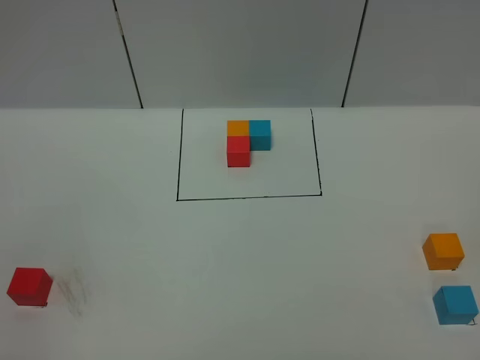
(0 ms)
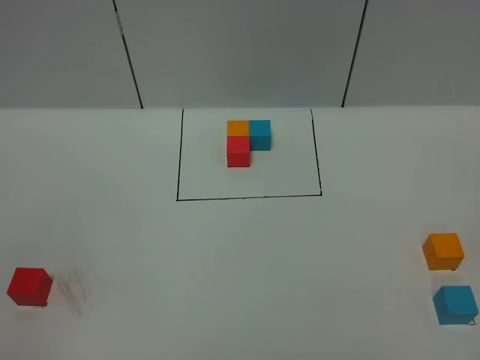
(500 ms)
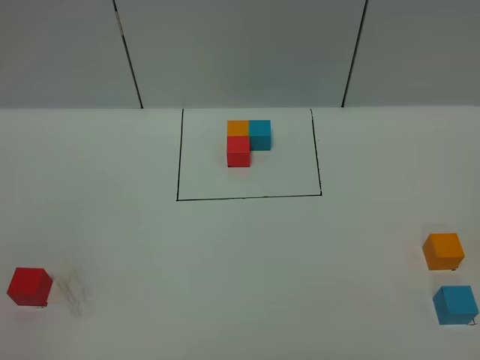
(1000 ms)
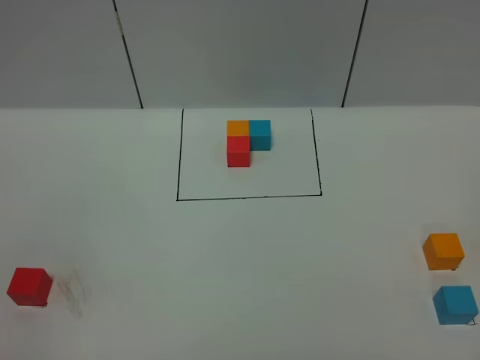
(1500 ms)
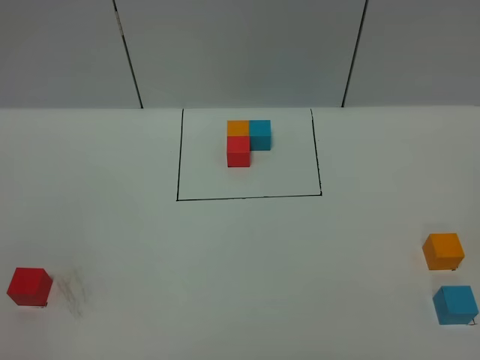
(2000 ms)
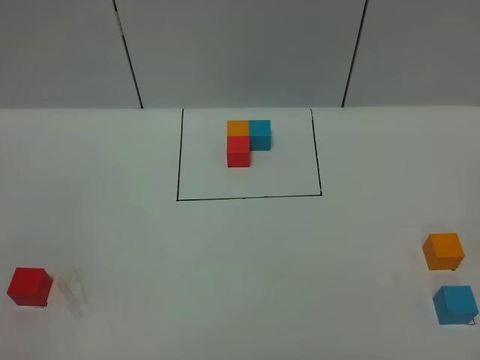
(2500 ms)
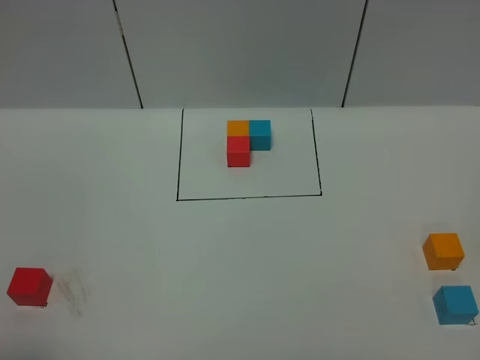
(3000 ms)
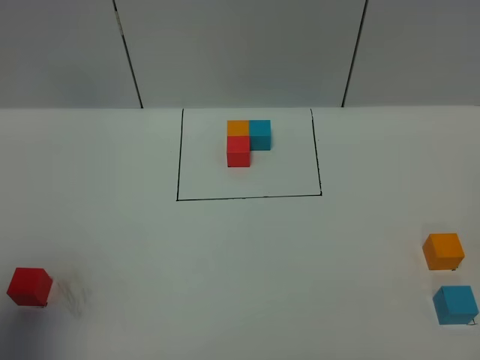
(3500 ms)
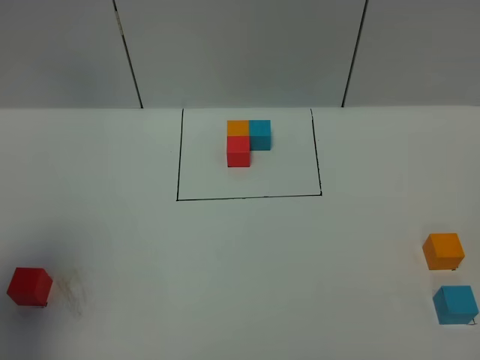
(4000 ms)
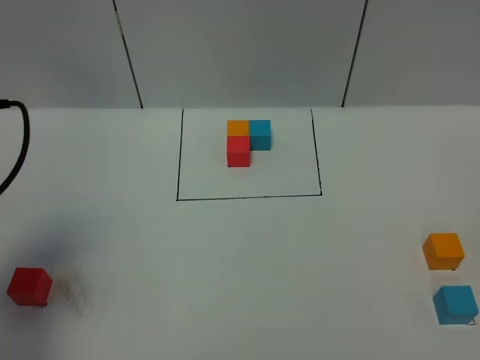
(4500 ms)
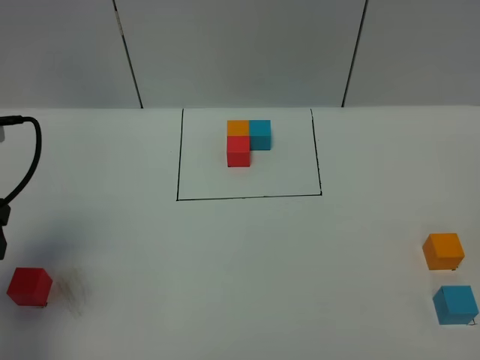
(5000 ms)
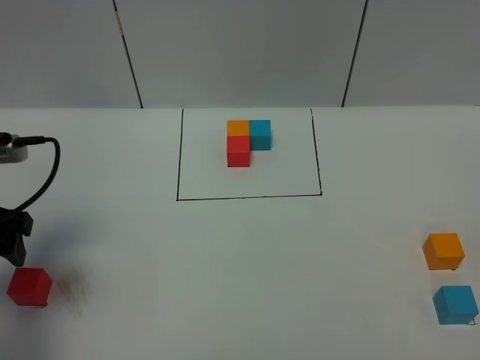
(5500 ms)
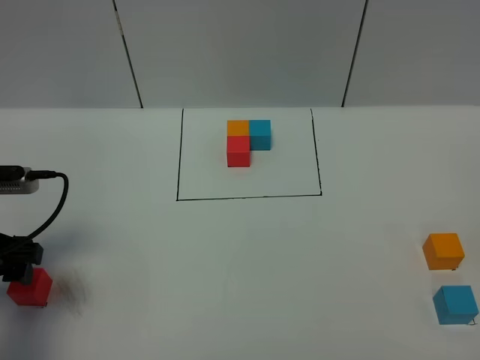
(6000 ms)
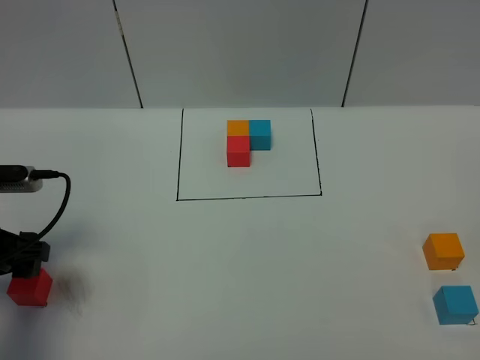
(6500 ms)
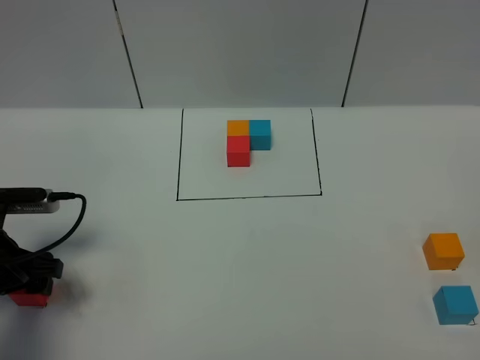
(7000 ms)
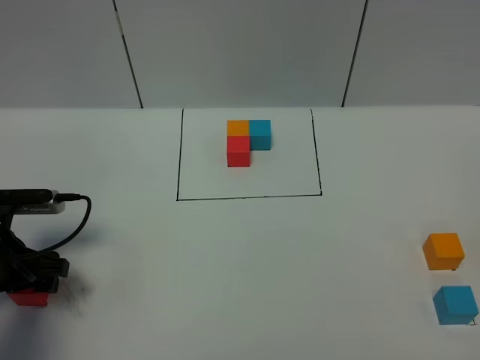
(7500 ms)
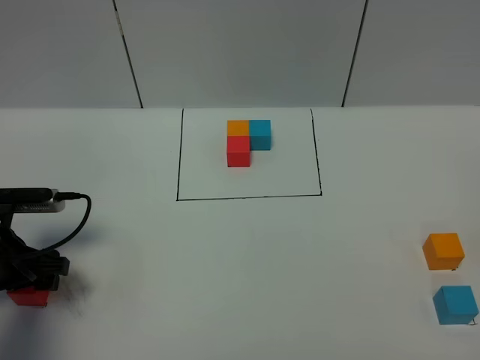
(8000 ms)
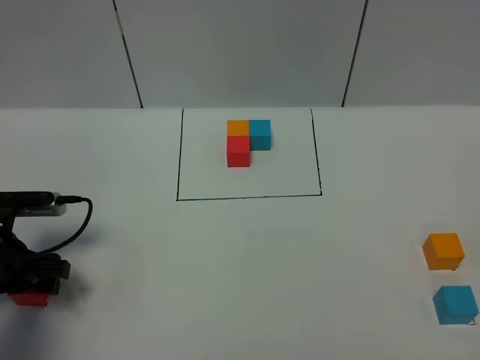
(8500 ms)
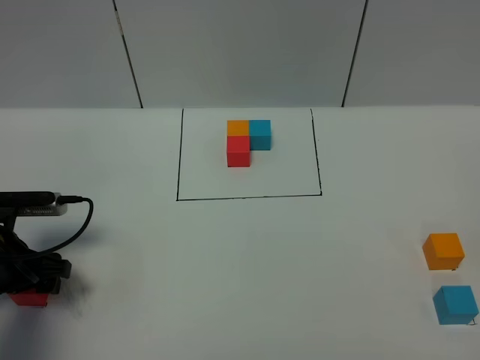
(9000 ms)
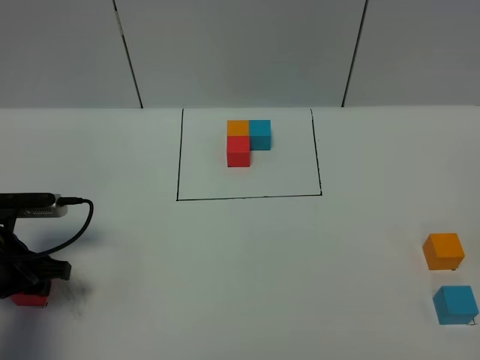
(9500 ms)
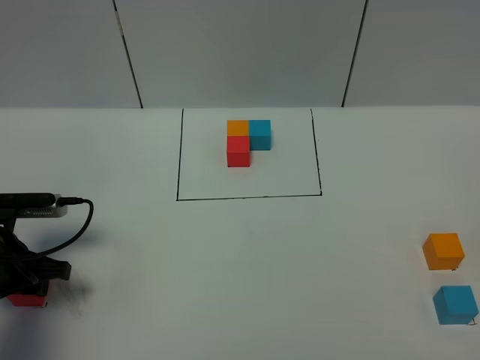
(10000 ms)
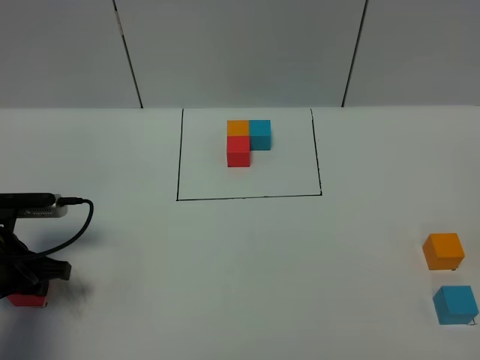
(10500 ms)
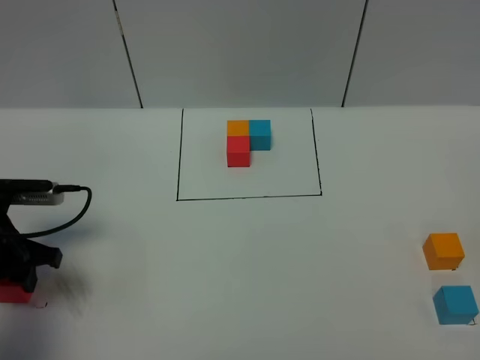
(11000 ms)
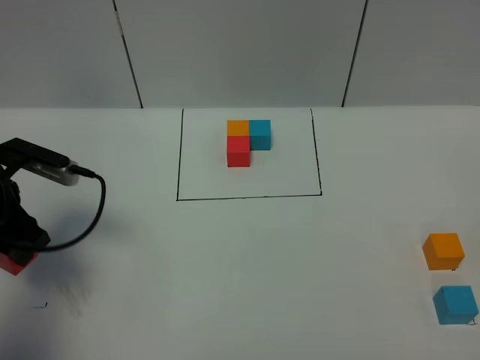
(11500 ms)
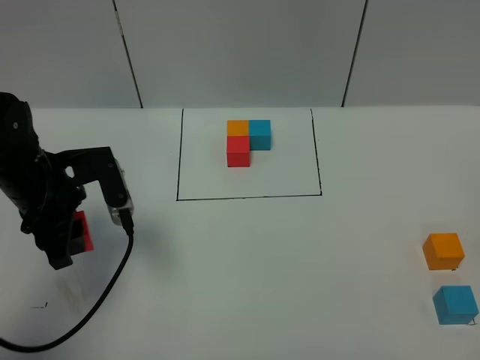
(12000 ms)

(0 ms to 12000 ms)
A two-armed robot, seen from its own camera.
Task of the whole recording: According to the building block template in front, assemble the scattered blocks together.
0 ms - 2000 ms: Neither gripper changes place.
2000 ms - 4000 ms: The left gripper heads forward, covering approximately 20 cm, and closes.
4000 ms - 6000 ms: The left gripper goes approximately 15 cm downward, and opens up.
6000 ms - 8000 ms: The left gripper moves downward, some 5 cm.
8000 ms - 10000 ms: The left gripper closes up.
10000 ms - 12000 ms: The left gripper is displaced upward and to the right by approximately 10 cm.

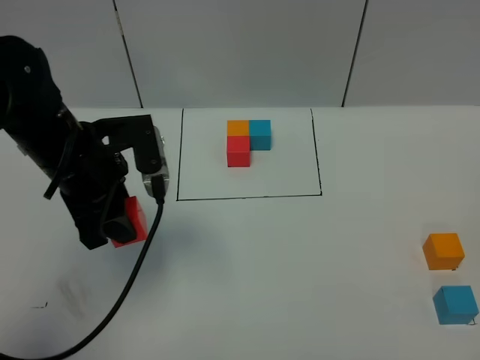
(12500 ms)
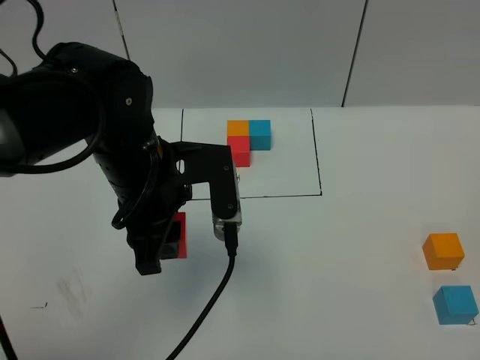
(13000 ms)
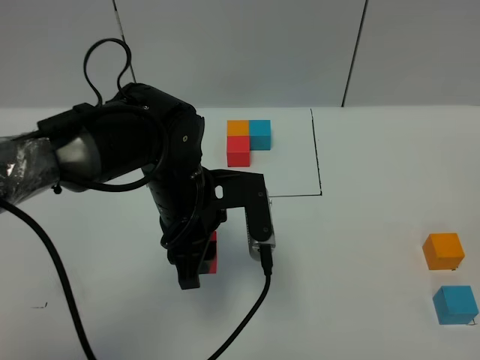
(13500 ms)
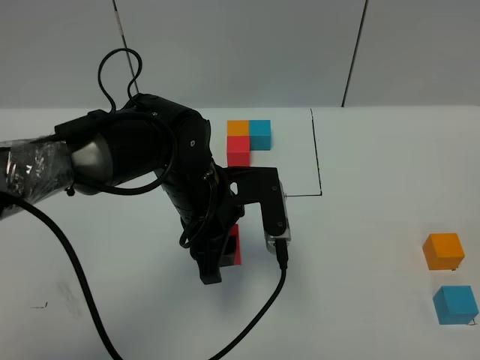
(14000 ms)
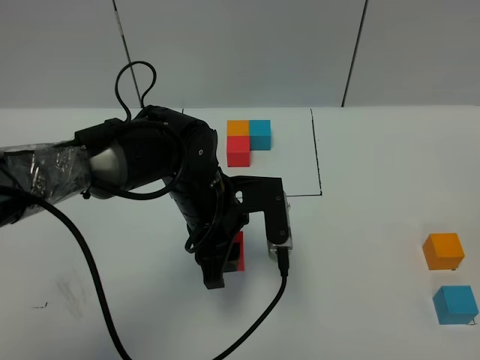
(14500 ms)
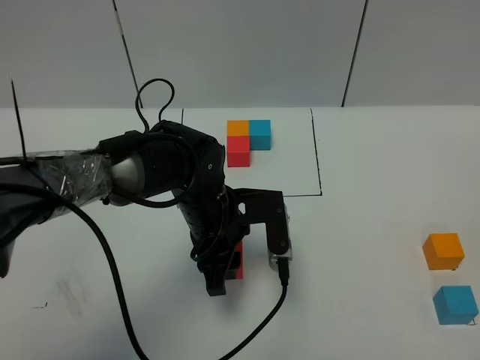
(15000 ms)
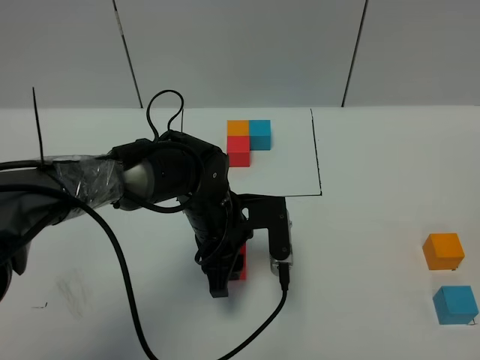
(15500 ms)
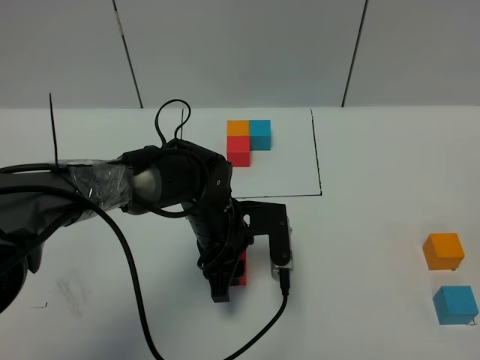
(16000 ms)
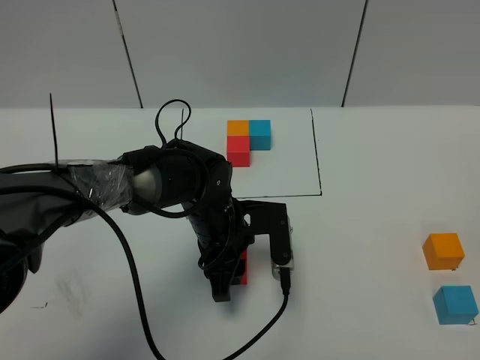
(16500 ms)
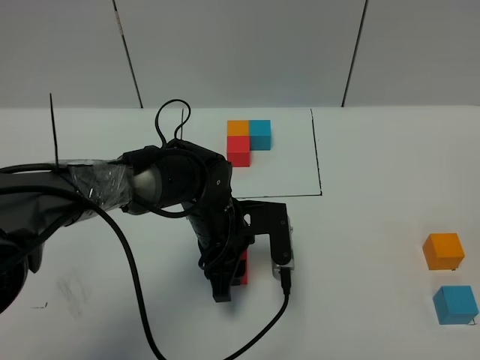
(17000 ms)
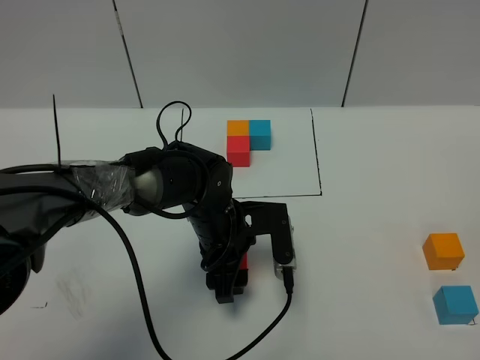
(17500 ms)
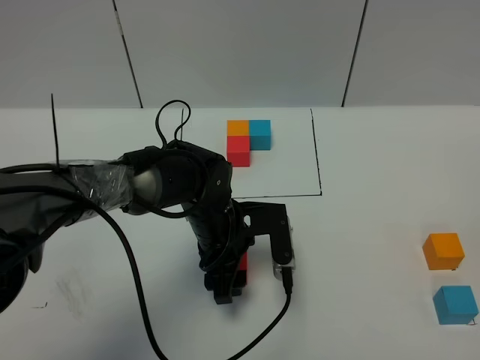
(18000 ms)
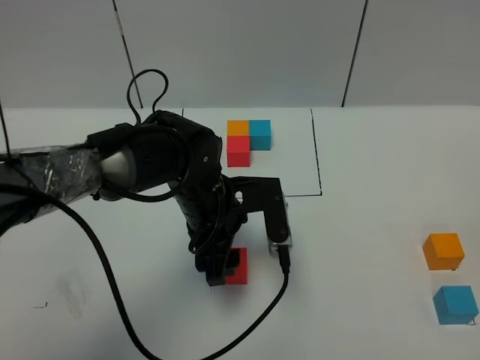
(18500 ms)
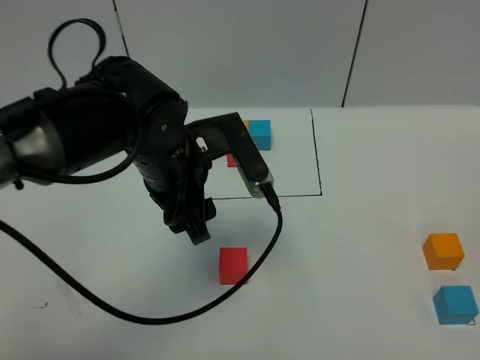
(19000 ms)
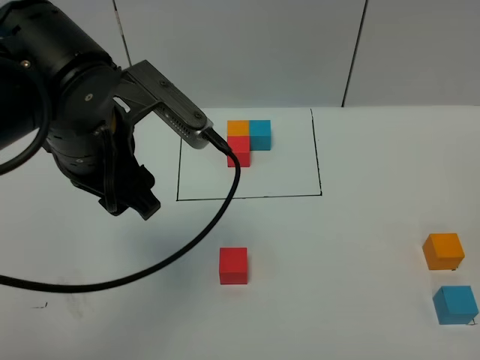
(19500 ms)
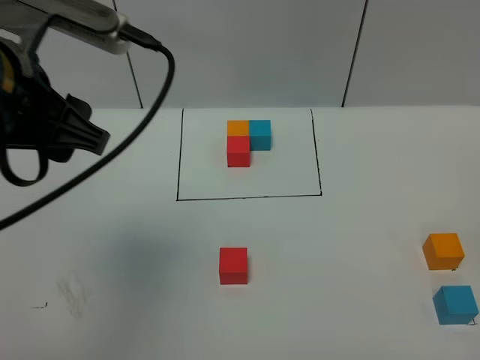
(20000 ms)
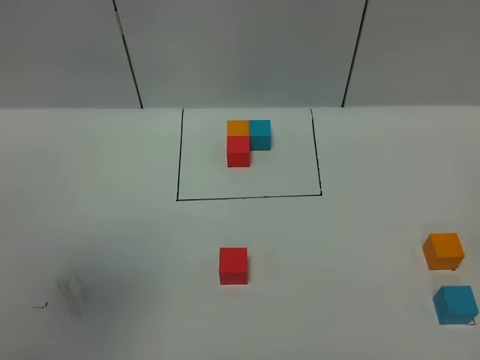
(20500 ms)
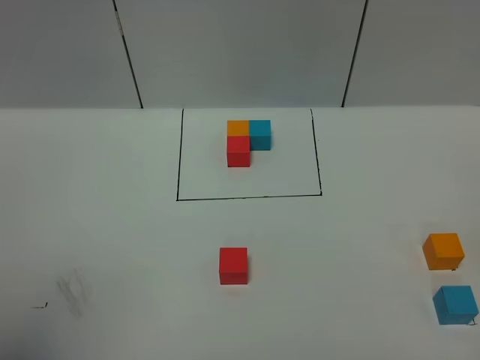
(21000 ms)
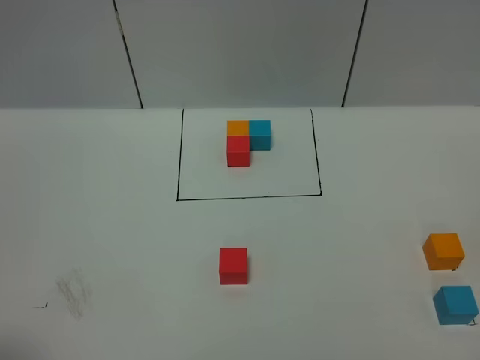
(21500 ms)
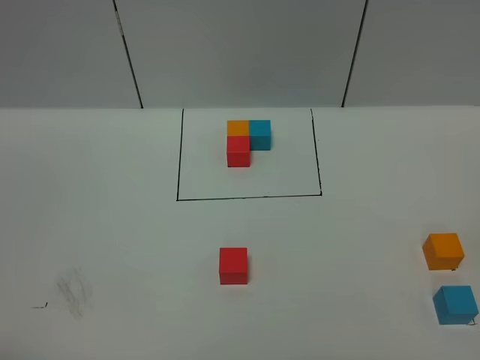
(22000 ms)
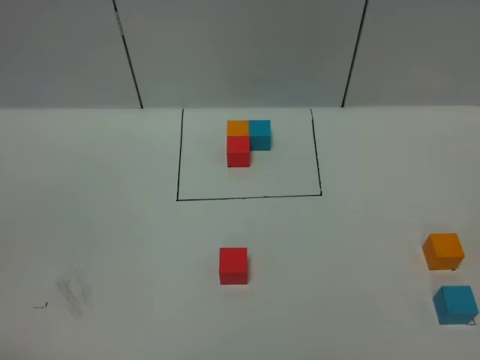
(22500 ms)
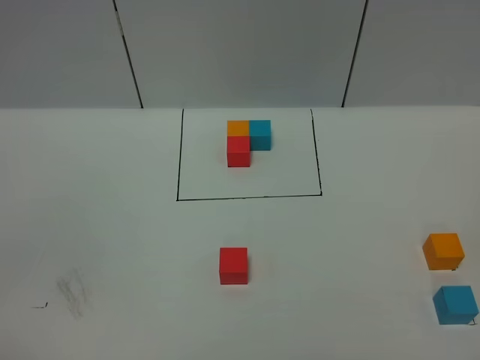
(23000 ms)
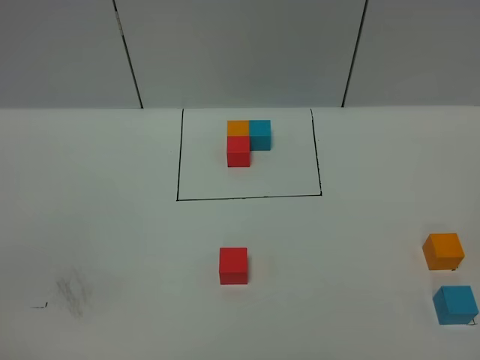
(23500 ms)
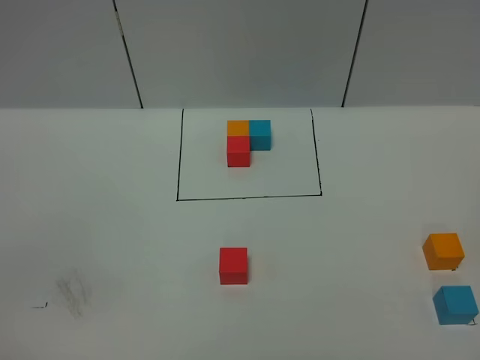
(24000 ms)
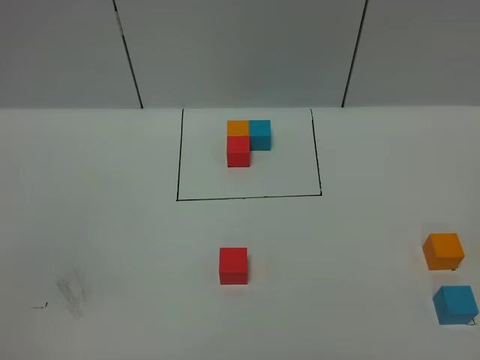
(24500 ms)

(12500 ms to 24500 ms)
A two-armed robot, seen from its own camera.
Task of the whole recording: According to the building block template in front, assemble the scattered blocks together.
Step, 12500 ms - 18500 ms: Put the red cube in the center of the table.
12500 ms - 14500 ms: The left gripper goes about 15 cm to the right and downward.
14500 ms - 16500 ms: The left gripper moves downward, roughly 5 cm.
16500 ms - 18500 ms: The left gripper is displaced upward by about 5 cm, and opens.
18500 ms - 20500 ms: The left gripper travels upward, to the left and backward by about 40 cm.
20500 ms - 22500 ms: The left gripper heads backward and downward, covering roughly 20 cm.

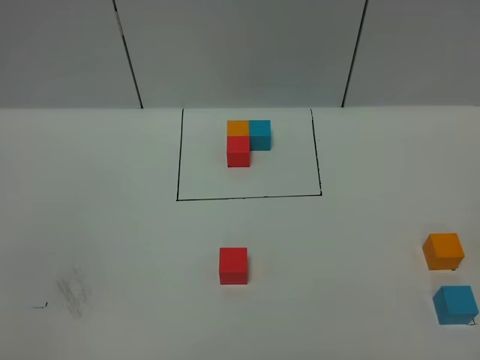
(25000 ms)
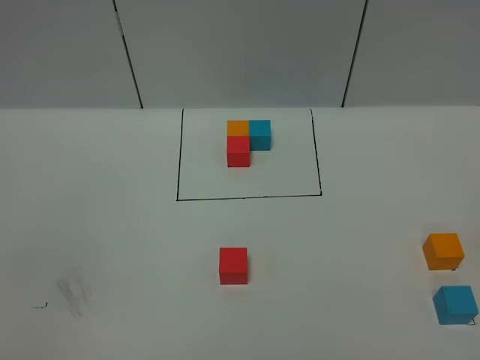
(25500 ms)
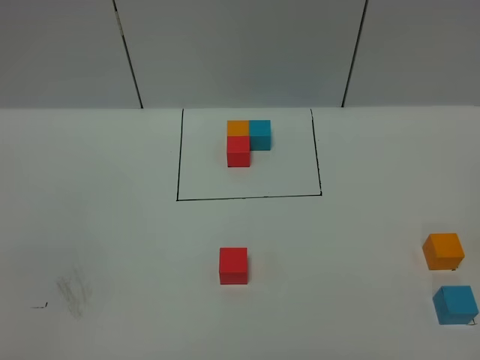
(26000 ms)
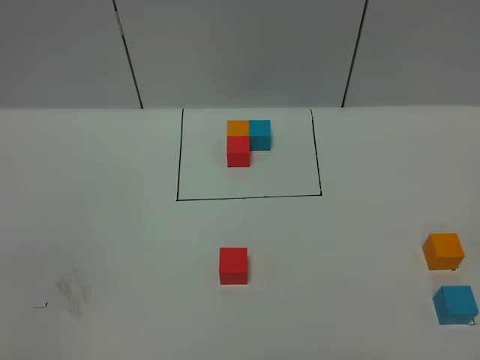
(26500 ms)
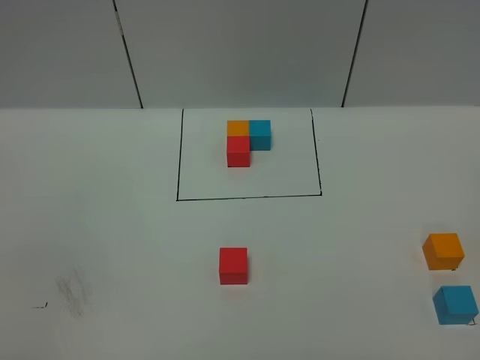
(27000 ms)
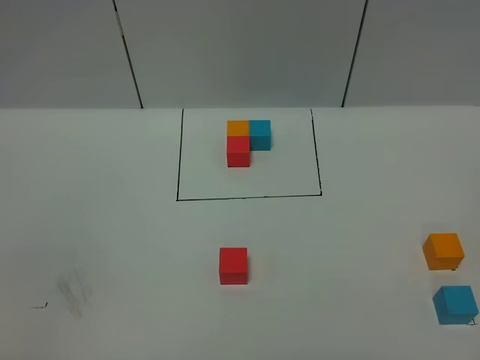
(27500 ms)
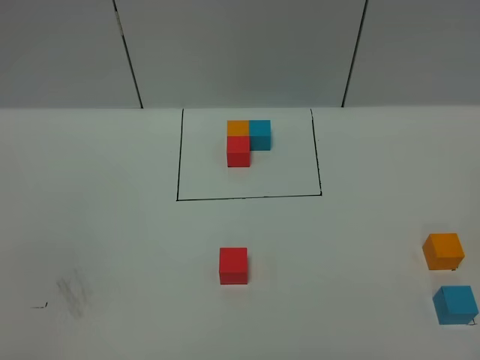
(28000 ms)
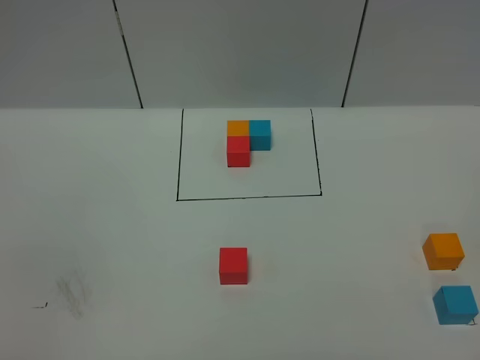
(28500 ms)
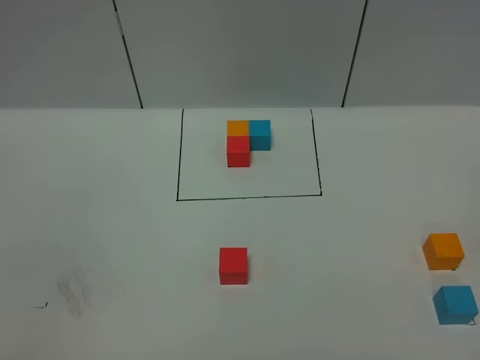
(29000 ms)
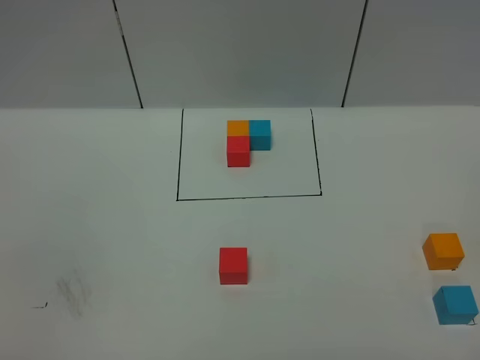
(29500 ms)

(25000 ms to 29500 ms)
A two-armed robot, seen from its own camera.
Task of the whole recording: According to the building block template in front, assemble the scattered blocks together.
25000 ms - 27000 ms: Both grippers stay put.
